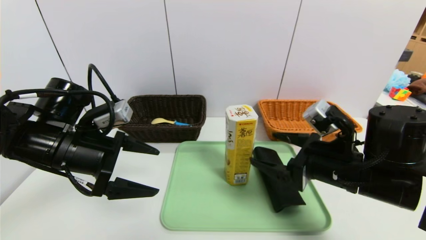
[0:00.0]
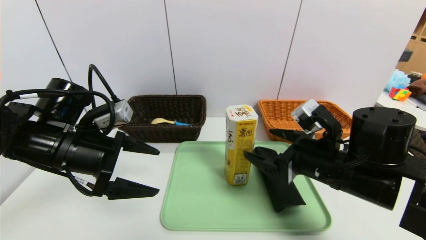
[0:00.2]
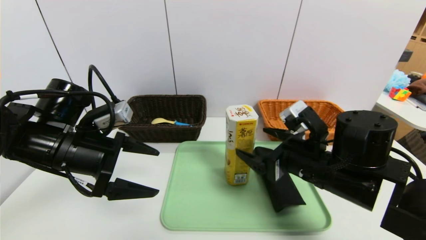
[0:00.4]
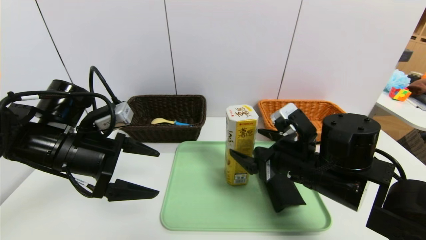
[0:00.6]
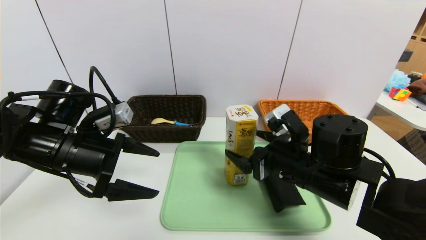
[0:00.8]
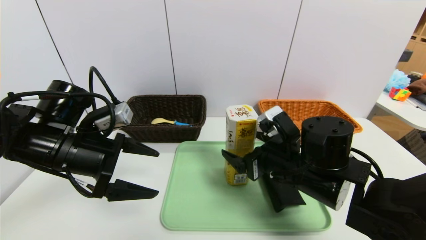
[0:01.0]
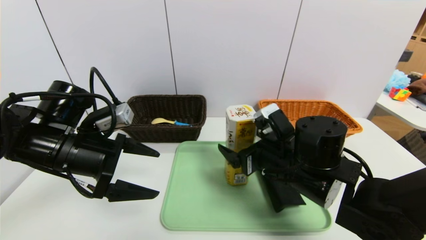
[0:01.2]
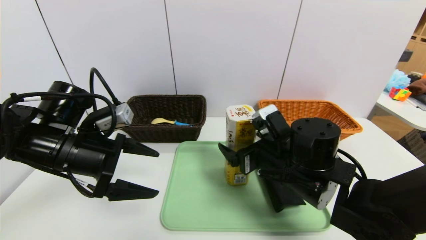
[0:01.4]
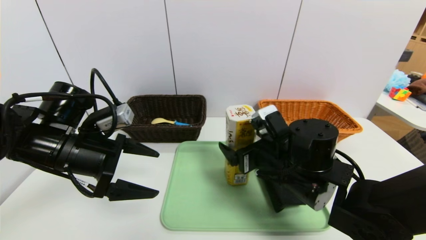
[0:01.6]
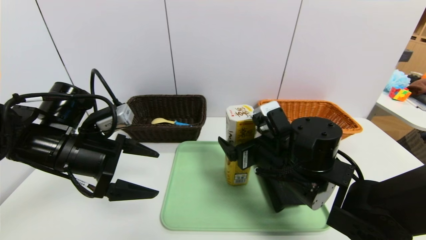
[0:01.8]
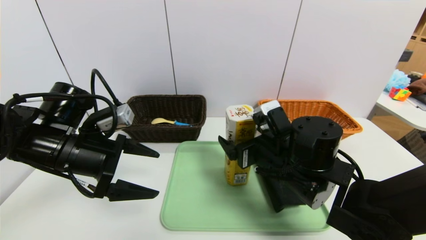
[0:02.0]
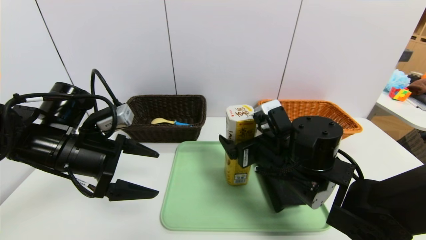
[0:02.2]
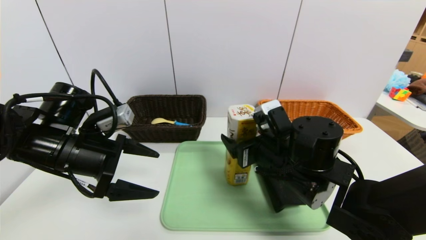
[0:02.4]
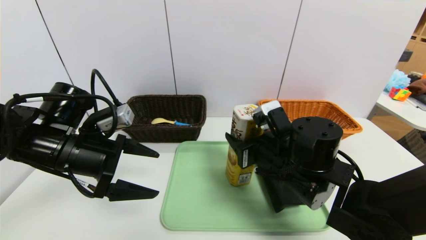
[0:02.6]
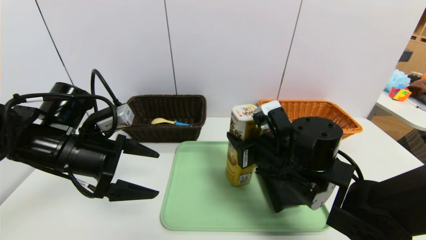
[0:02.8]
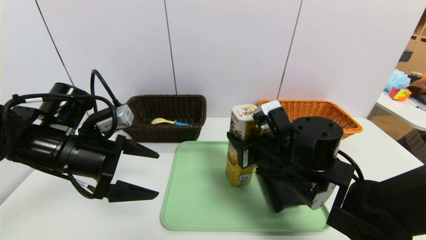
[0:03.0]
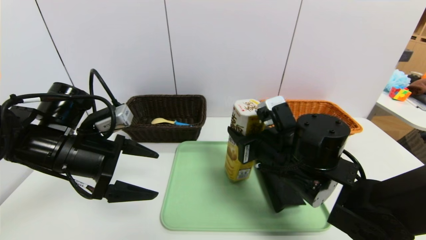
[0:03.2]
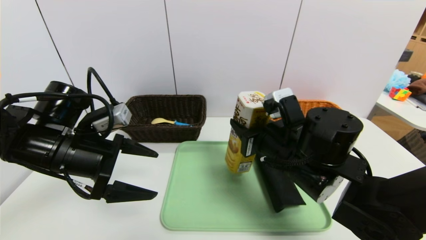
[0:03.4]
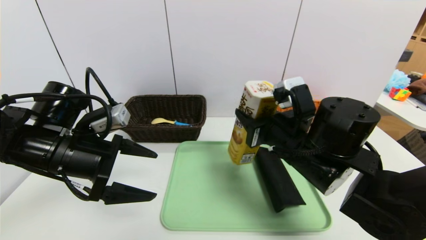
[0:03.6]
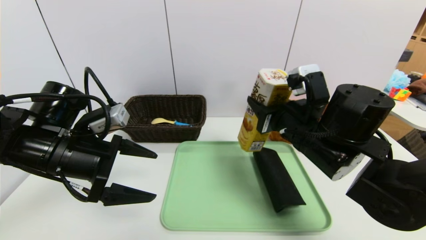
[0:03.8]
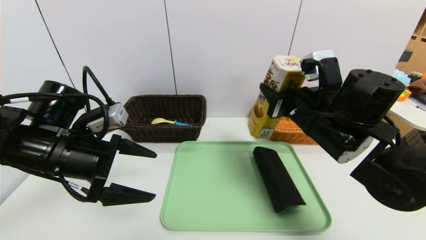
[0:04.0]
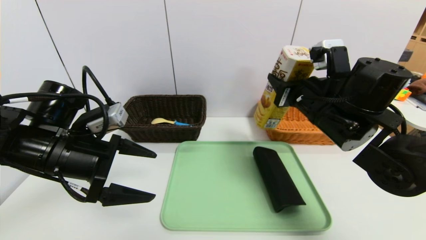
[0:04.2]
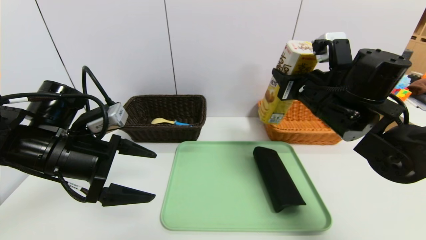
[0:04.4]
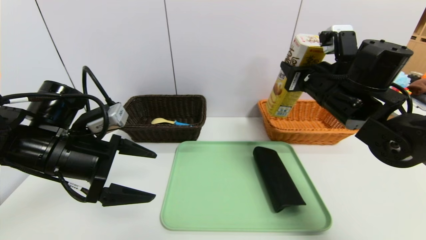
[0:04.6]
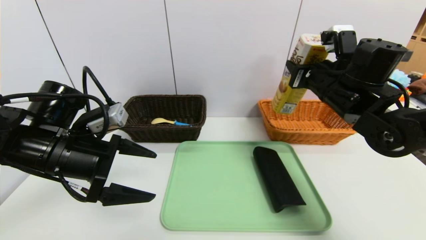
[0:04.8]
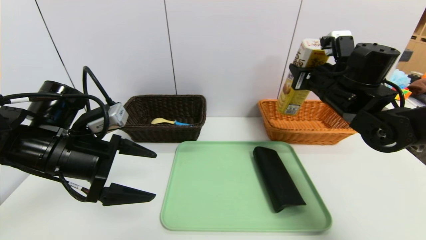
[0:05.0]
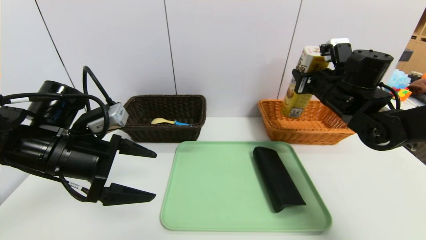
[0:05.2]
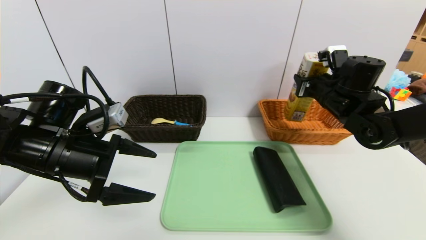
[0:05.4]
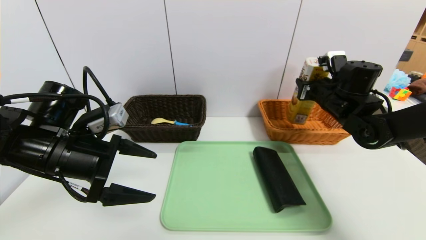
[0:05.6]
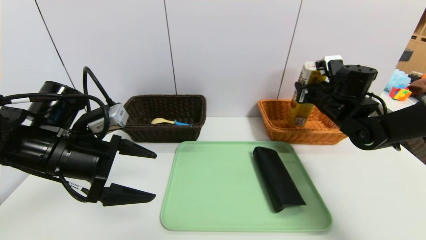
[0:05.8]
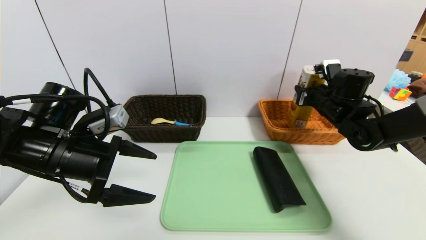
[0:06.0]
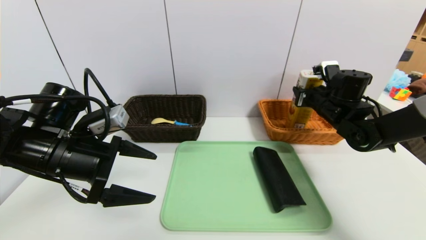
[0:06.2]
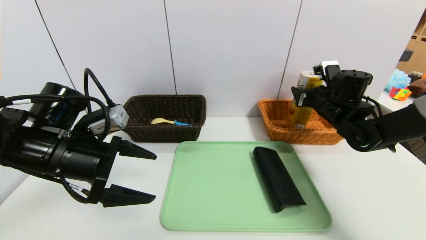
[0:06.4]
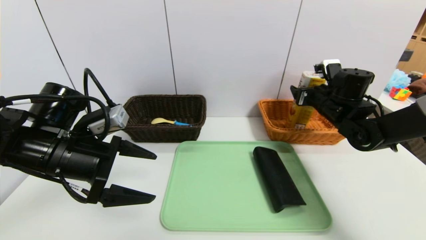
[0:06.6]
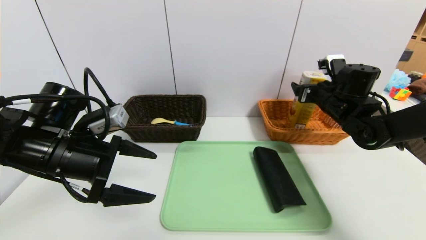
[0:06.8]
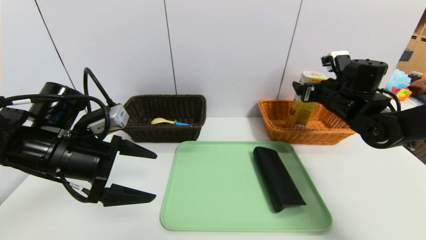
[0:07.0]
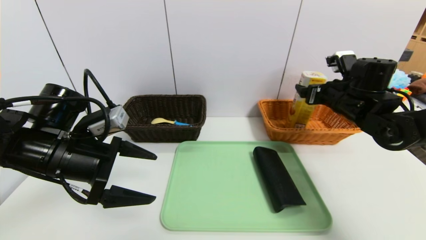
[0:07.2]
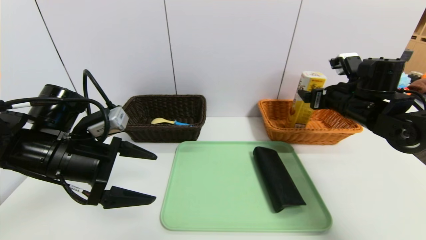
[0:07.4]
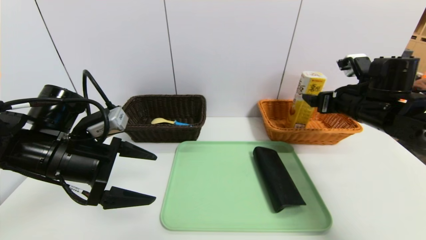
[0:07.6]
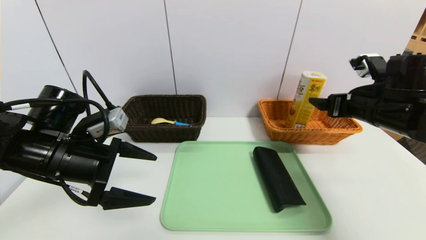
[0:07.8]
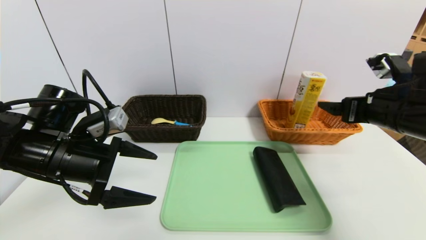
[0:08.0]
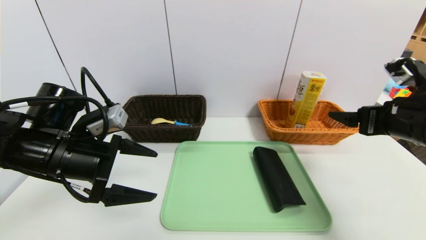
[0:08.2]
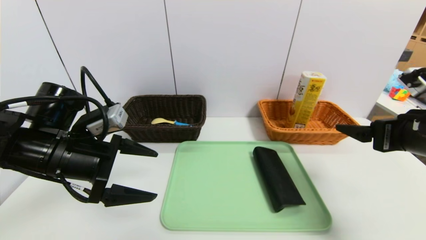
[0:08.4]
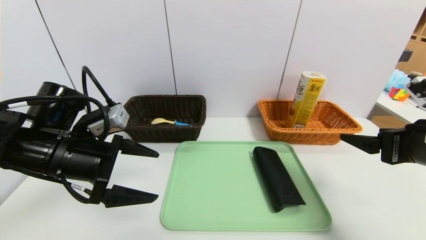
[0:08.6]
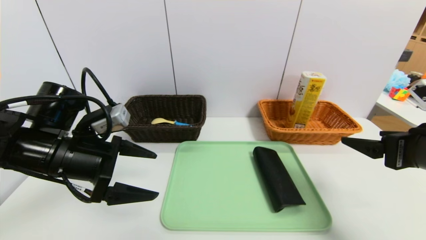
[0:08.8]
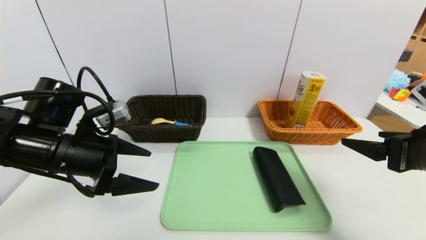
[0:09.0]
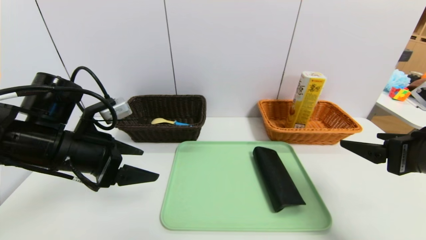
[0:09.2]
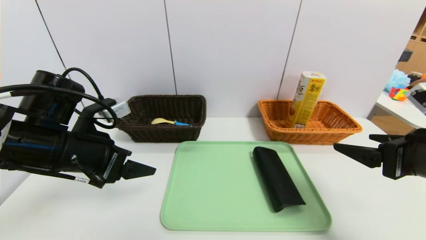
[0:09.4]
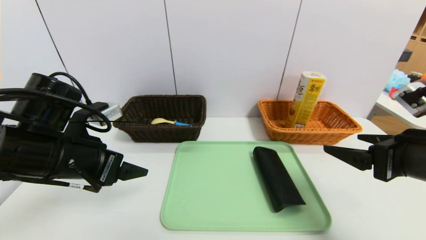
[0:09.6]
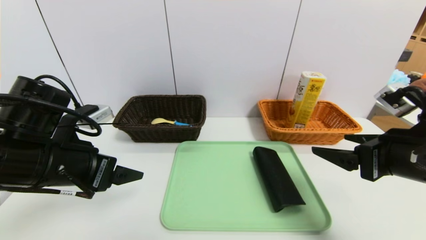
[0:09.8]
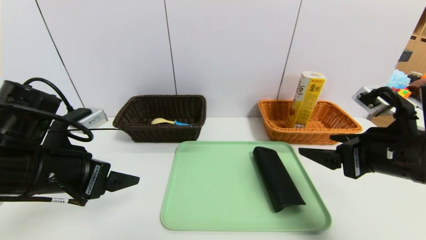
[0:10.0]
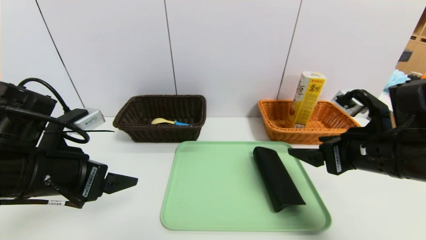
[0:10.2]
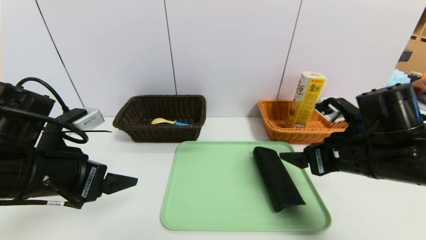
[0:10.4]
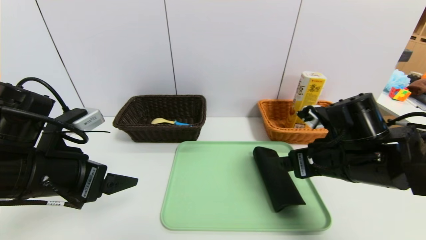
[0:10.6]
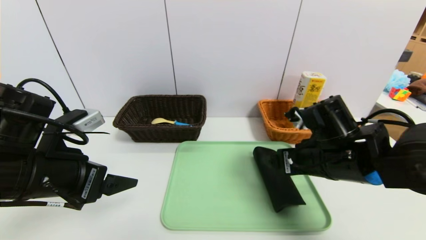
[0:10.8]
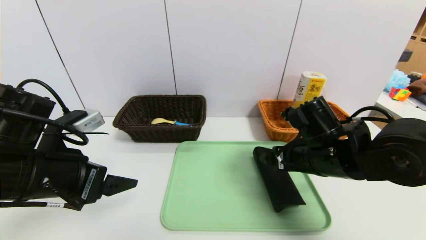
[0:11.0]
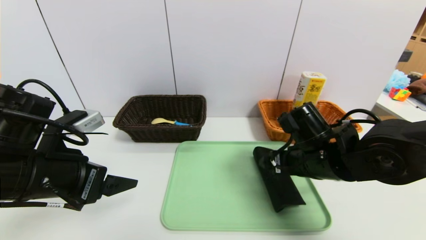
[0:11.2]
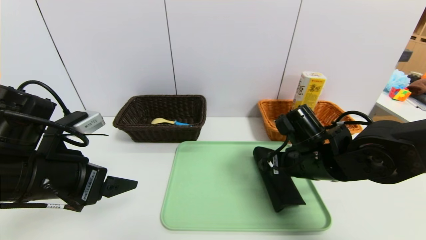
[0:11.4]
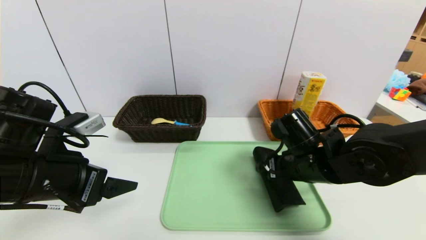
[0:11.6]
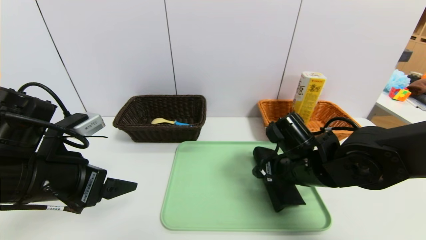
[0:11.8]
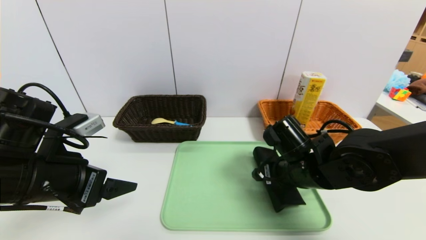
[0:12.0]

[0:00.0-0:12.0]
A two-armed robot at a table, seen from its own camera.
Task of the whole recording: place the food in the right basket with the right gripper, and place the non food items in the left basket with the left gripper.
Step, 0:00.0 to 0:07.0: Grasp the potato chips and put it in the right basket.
0:00.0 to 0:01.6: The right gripper is displaced to the left by approximately 10 cm.
0:01.6 to 0:03.0: The right gripper closes up.
0:03.0 to 0:04.4: The right gripper heads upward, to the right and forward, covering approximately 15 cm.
0:04.4 to 0:06.0: The right gripper travels forward, to the right and downward by about 15 cm.
0:06.0 to 0:07.6: The right gripper heads backward, covering roughly 10 cm, and opens.
0:07.6 to 0:09.0: The right gripper moves backward, about 15 cm.
0:09.0 to 0:10.4: The right gripper shifts some 10 cm to the left and forward. Meanwhile the left gripper travels backward by roughly 5 cm.
0:10.4 to 0:12.0: The right gripper is displaced to the left and downward by some 10 cm.

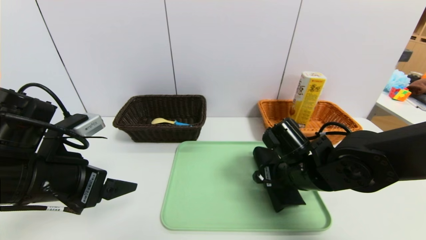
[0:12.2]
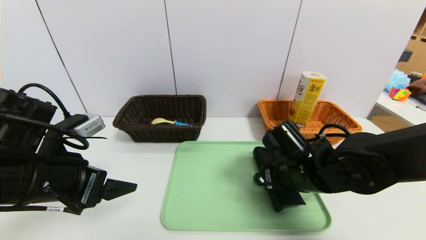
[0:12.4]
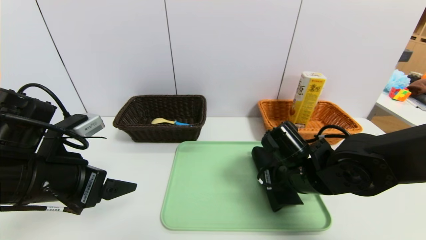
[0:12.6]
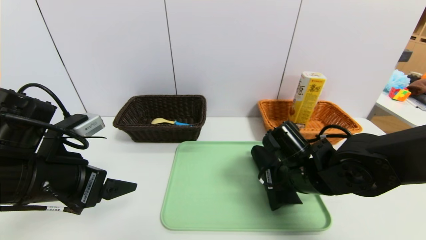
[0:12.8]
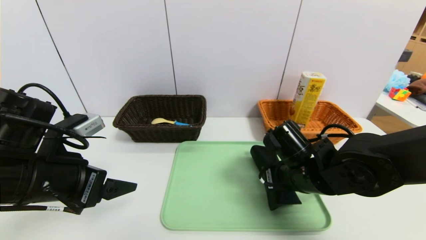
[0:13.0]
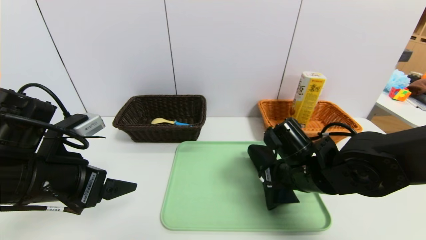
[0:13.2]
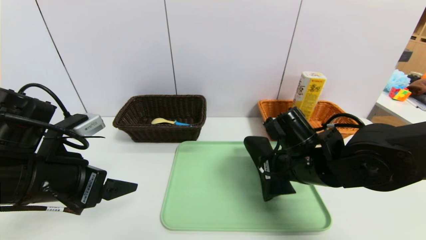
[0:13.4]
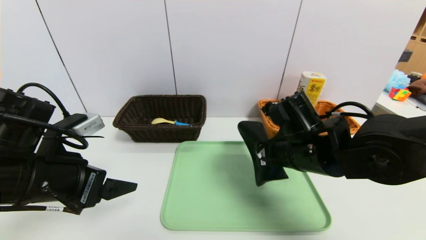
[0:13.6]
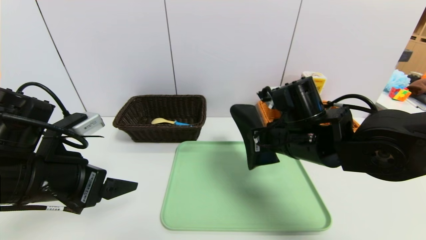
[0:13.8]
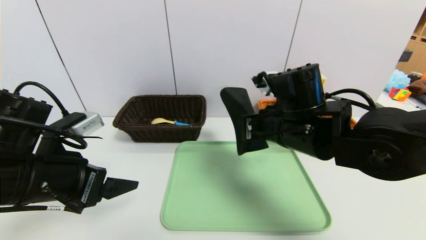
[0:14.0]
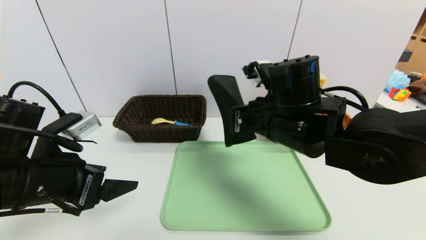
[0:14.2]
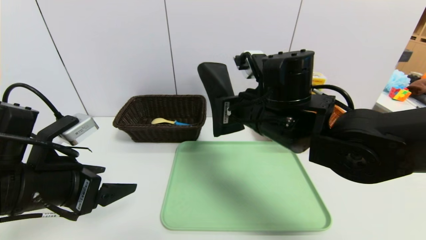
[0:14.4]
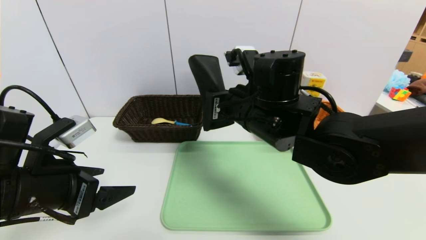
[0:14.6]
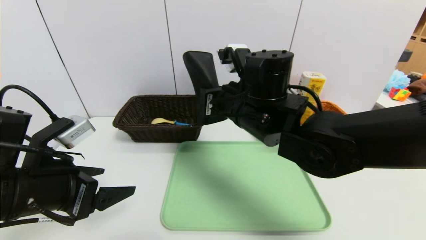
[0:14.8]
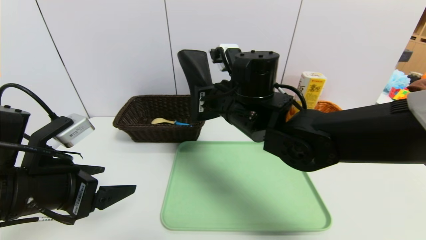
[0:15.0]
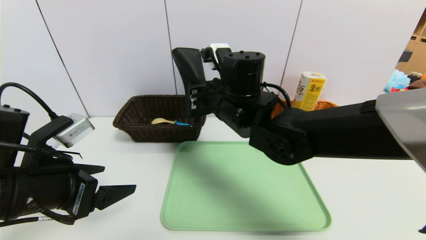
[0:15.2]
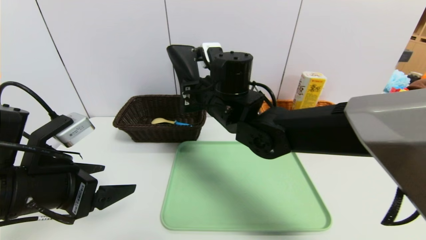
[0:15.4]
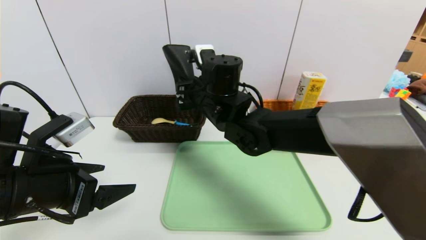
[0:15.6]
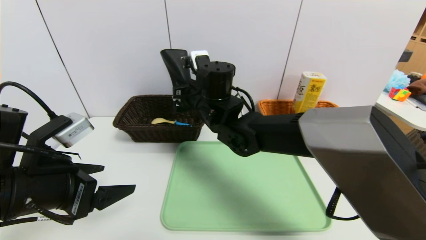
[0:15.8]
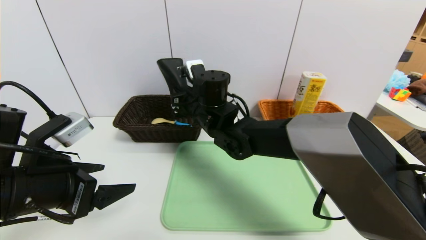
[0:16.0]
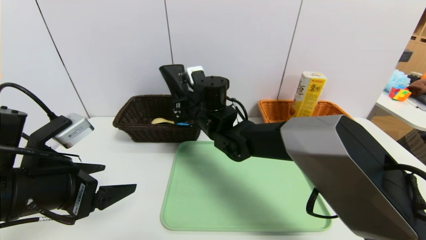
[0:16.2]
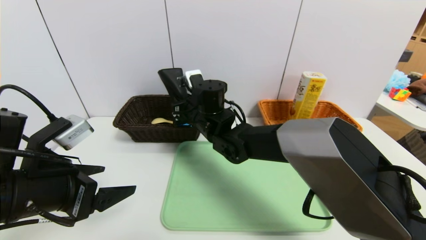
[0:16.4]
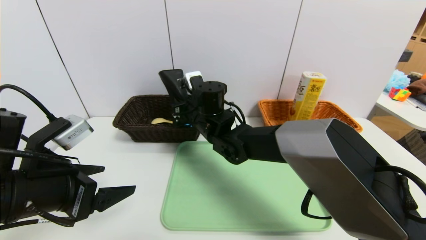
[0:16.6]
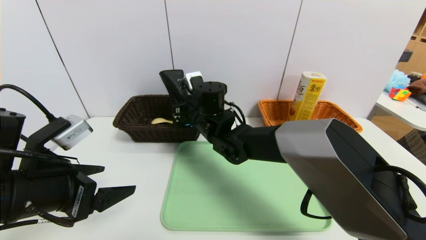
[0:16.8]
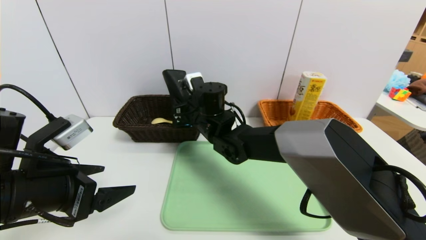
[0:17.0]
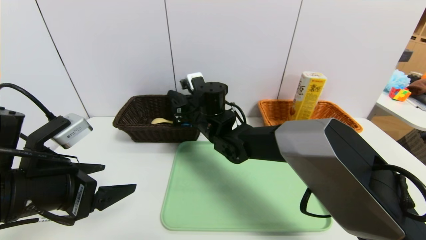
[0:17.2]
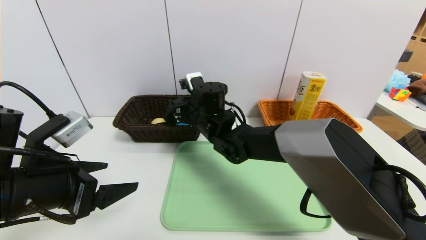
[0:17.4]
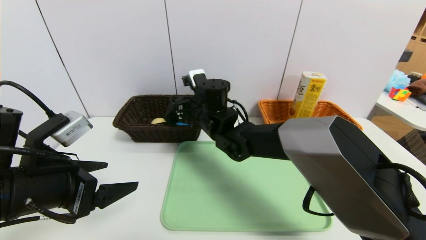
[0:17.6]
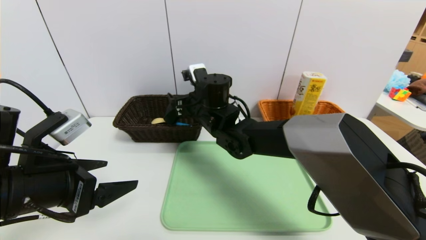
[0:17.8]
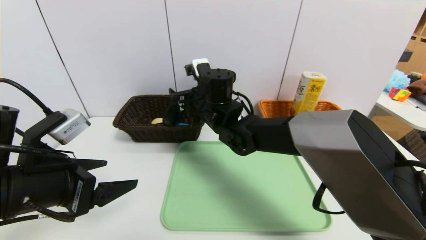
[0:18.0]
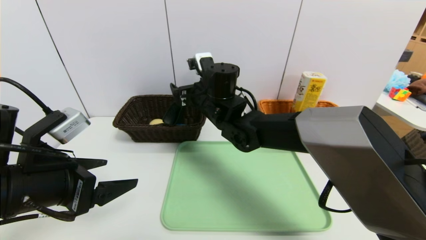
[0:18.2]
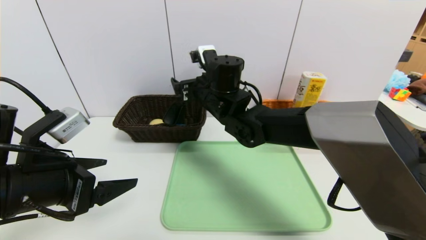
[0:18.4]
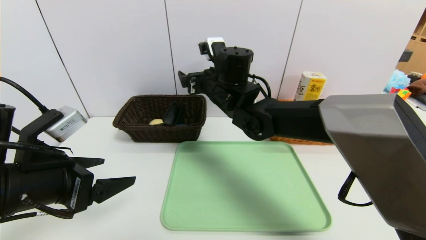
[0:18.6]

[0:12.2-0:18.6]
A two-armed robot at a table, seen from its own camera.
Task of the whole recording: place the food in the right basket with the right gripper, and place the non food items in the left basket with the left gripper.
0:12.2 to 0:13.8: The right gripper shifts about 5 cm upward, and closes its fingers.
0:13.8 to 0:15.4: The right gripper is displaced to the left and forward by roughly 15 cm.
0:15.4 to 0:17.0: The right gripper travels downward and forward by about 10 cm.
0:17.0 to 0:18.6: The right gripper travels upward by roughly 5 cm, and opens.
